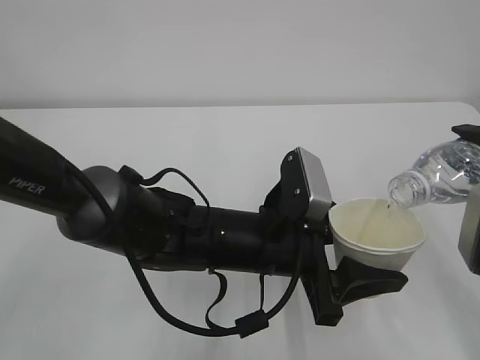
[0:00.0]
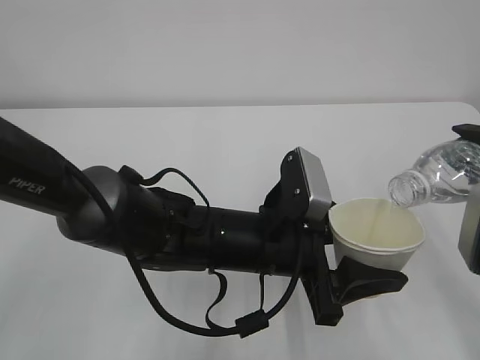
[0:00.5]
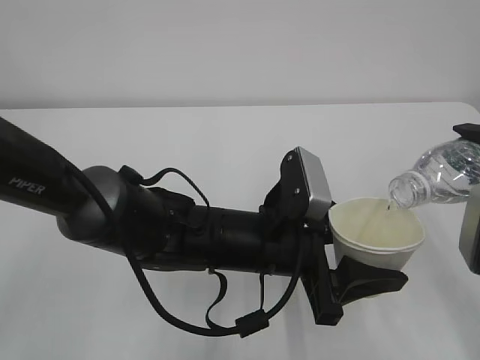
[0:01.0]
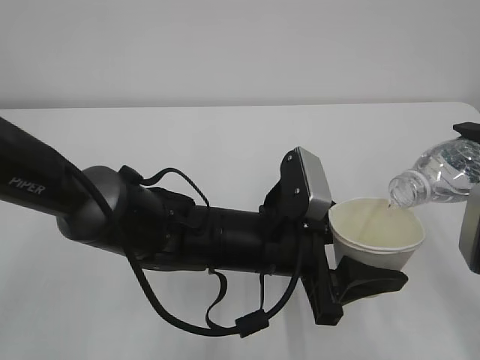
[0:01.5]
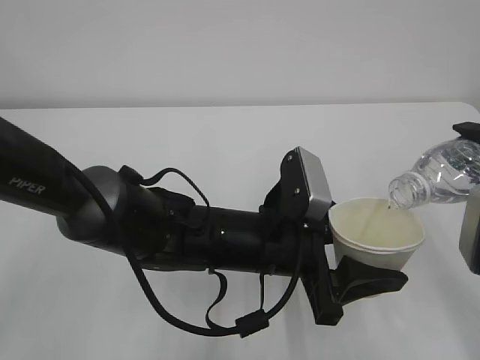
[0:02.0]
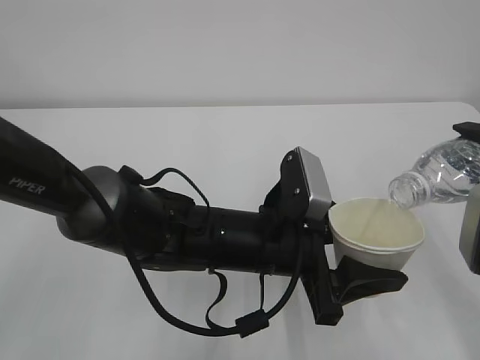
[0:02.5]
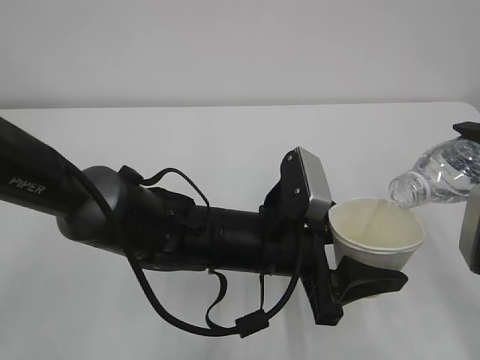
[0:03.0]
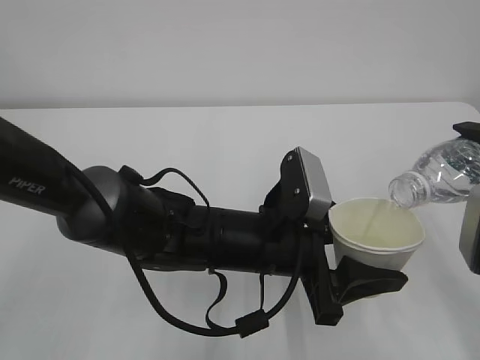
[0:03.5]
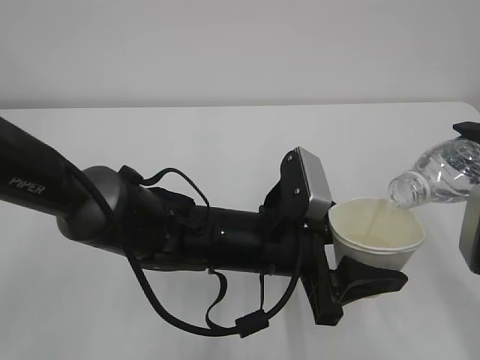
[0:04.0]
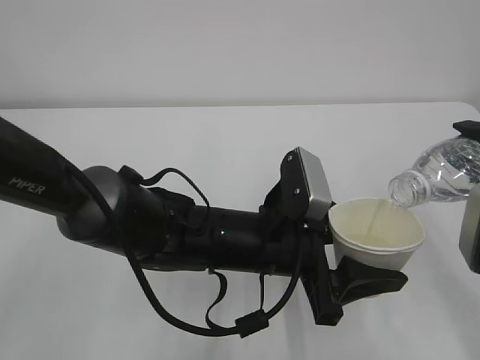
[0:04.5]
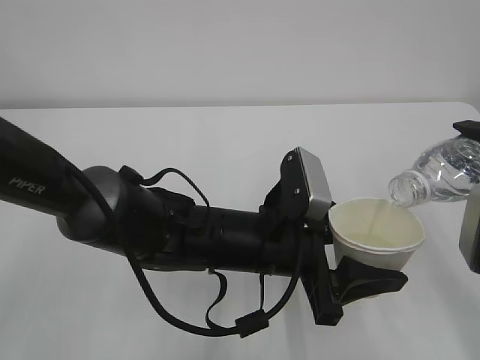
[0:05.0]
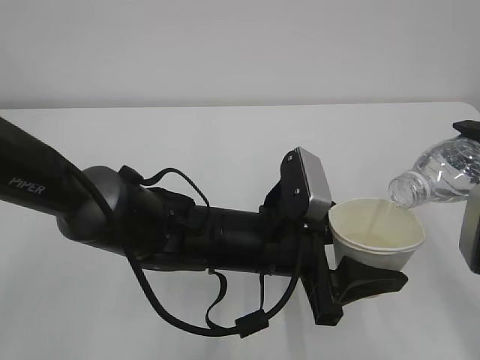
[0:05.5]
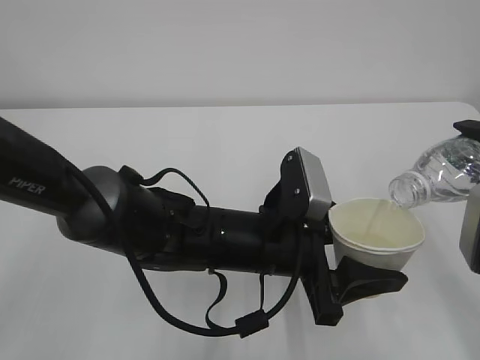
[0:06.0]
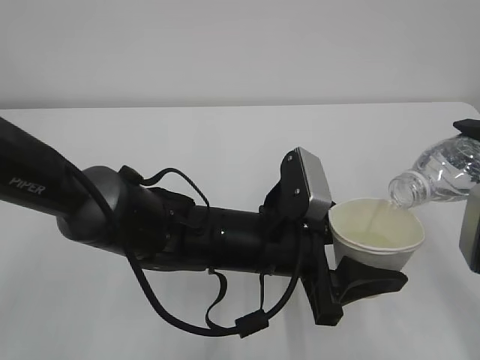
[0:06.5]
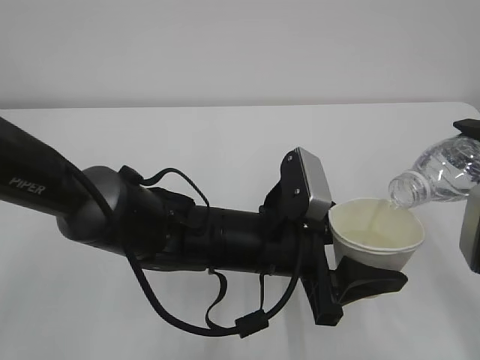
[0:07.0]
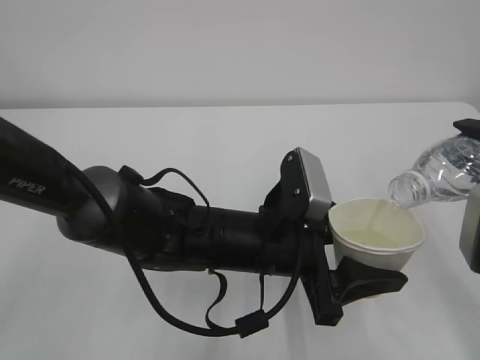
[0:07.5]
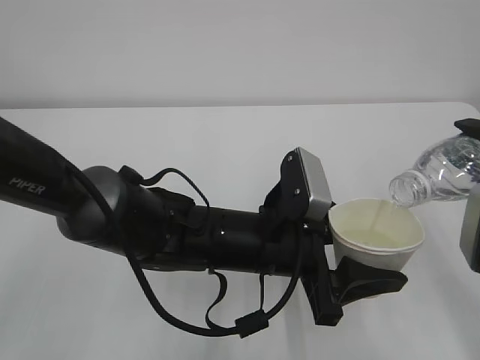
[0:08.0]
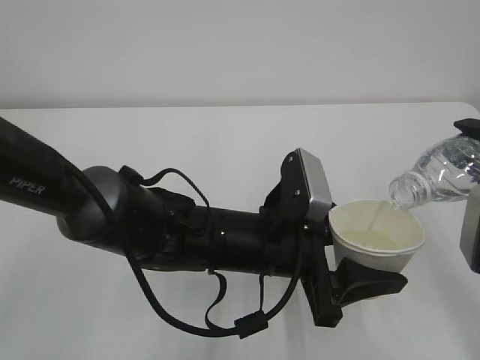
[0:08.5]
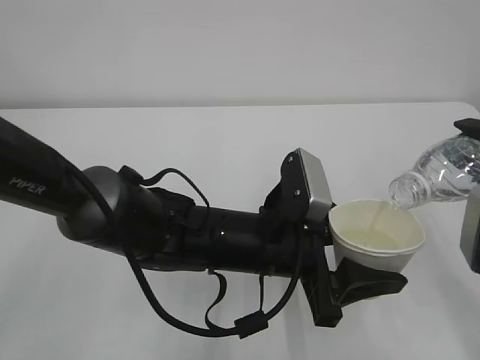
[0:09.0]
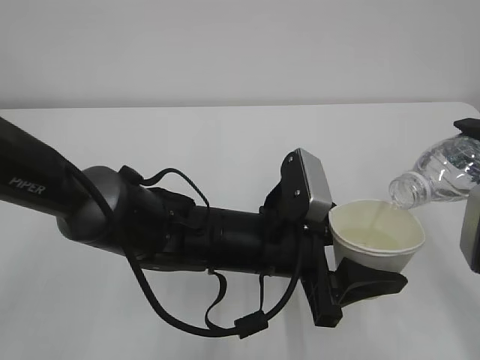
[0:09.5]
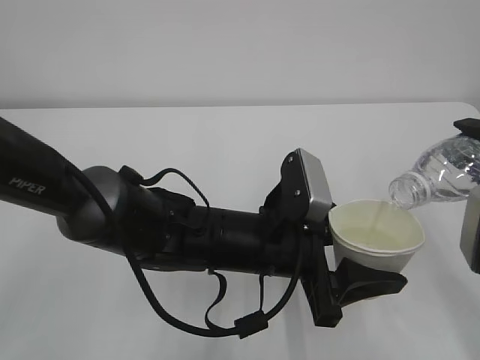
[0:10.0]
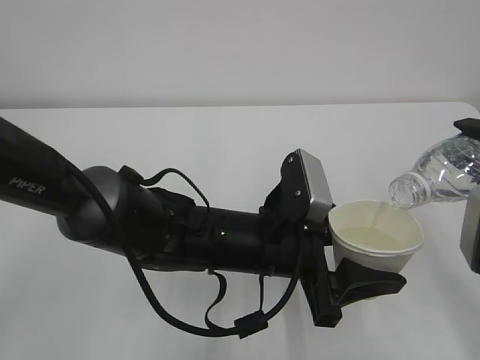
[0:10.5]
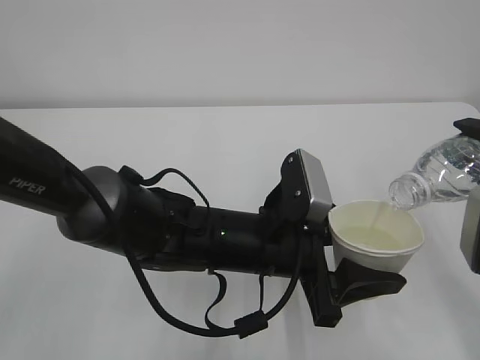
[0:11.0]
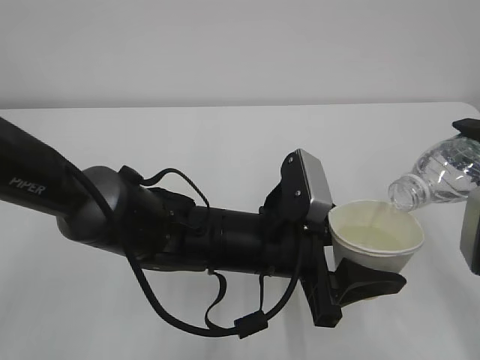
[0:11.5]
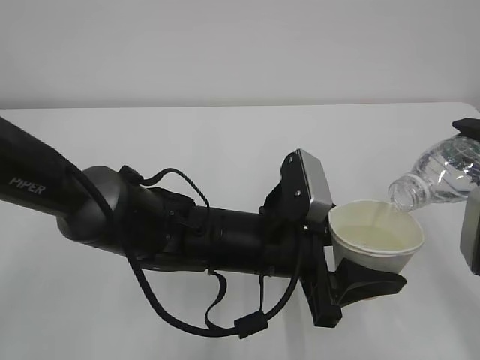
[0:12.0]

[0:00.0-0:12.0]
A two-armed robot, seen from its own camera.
0:00.0 to 0:10.0: The two grippers keep their place.
0:10.0 to 0:12.0: The two grippers keep their place.

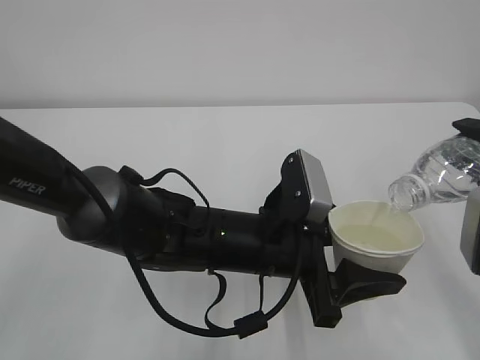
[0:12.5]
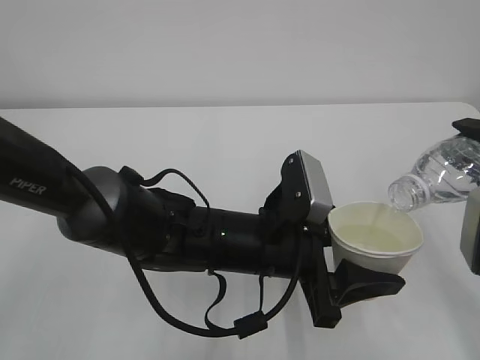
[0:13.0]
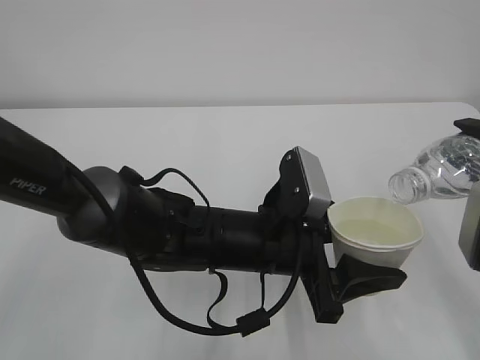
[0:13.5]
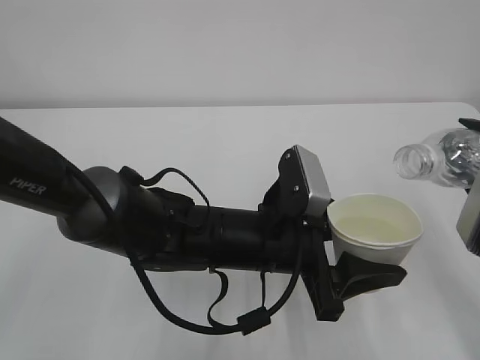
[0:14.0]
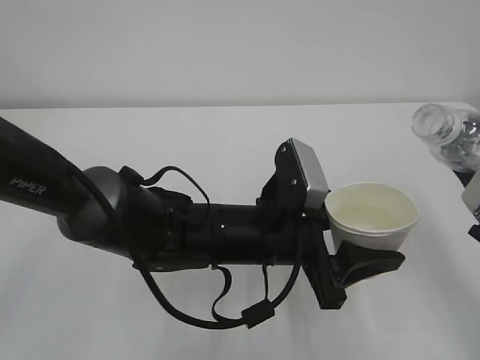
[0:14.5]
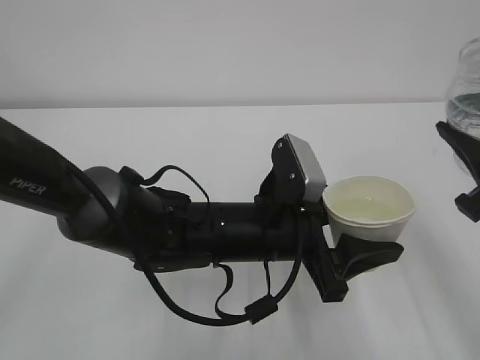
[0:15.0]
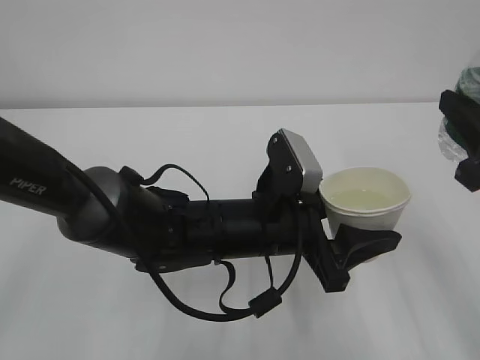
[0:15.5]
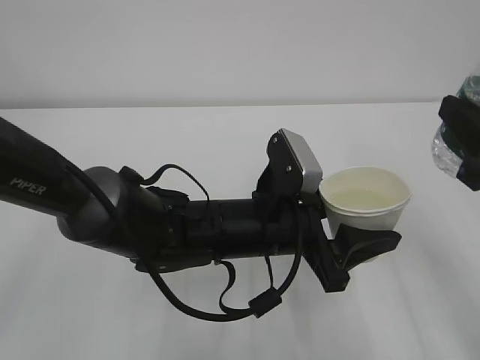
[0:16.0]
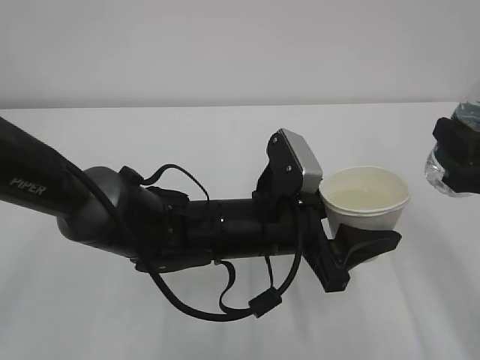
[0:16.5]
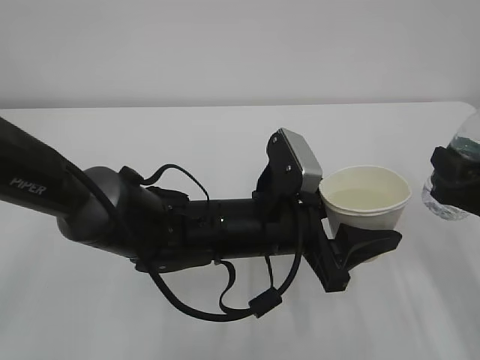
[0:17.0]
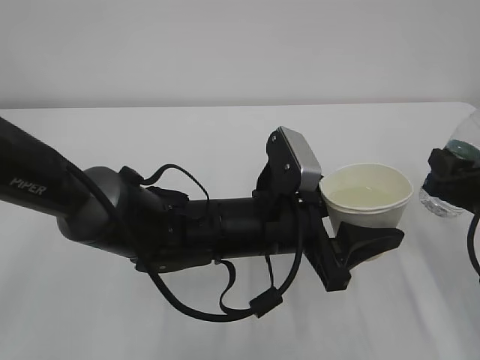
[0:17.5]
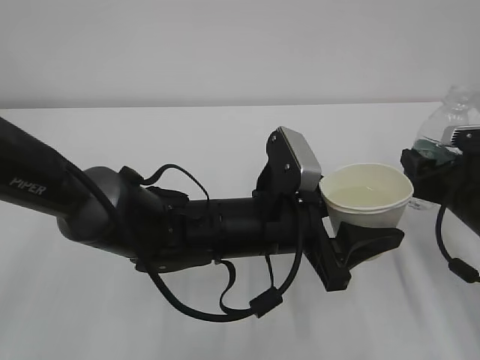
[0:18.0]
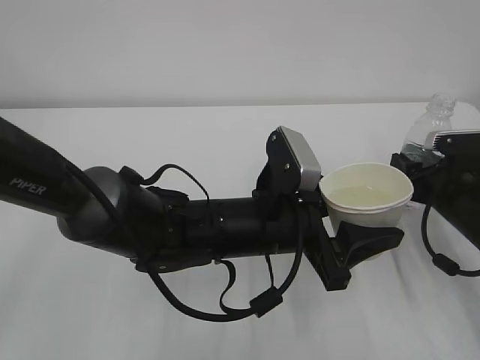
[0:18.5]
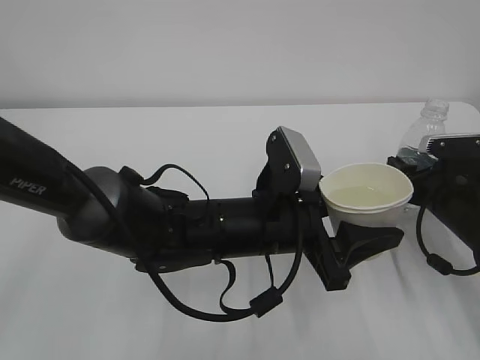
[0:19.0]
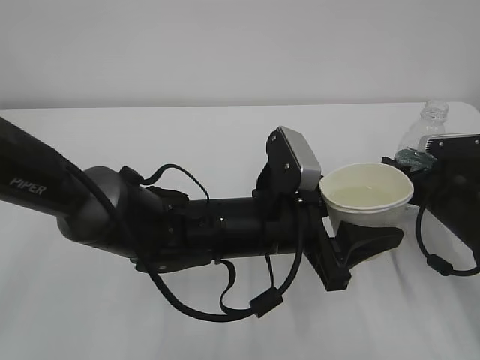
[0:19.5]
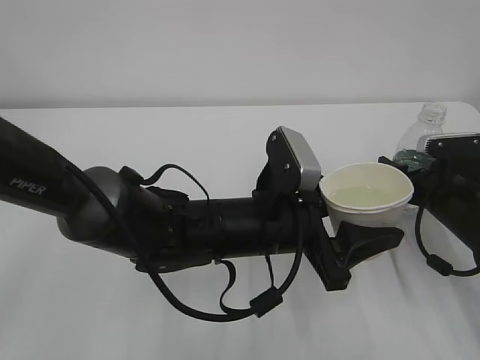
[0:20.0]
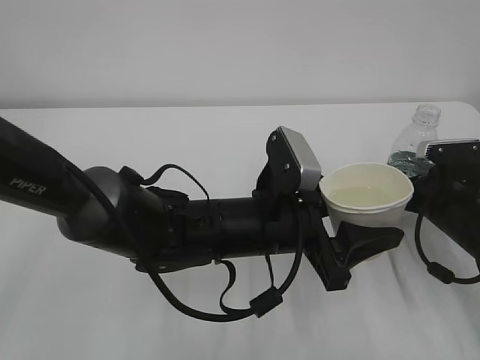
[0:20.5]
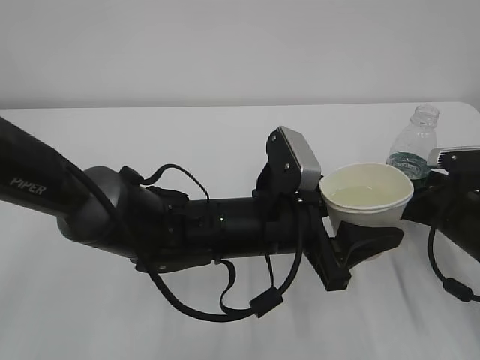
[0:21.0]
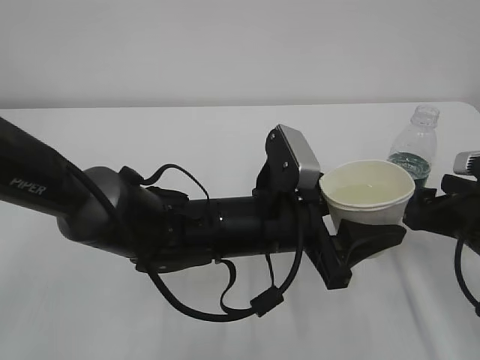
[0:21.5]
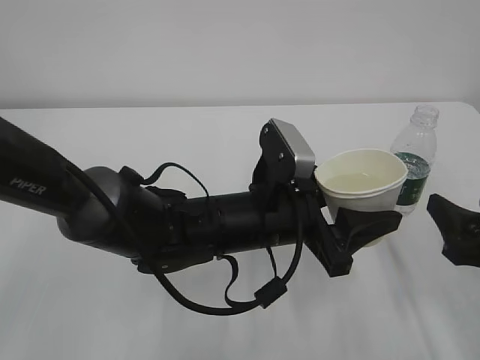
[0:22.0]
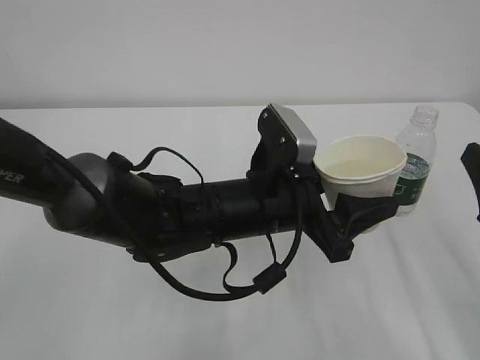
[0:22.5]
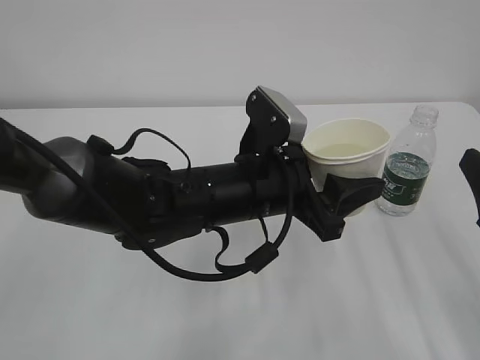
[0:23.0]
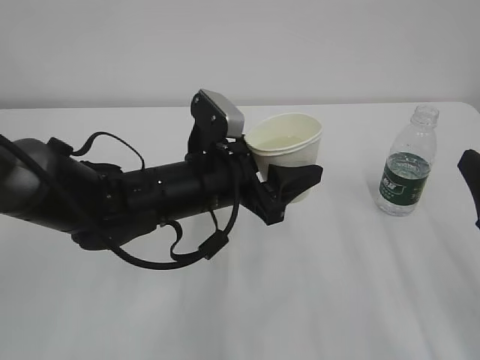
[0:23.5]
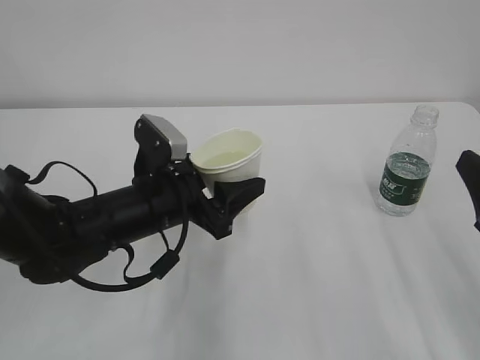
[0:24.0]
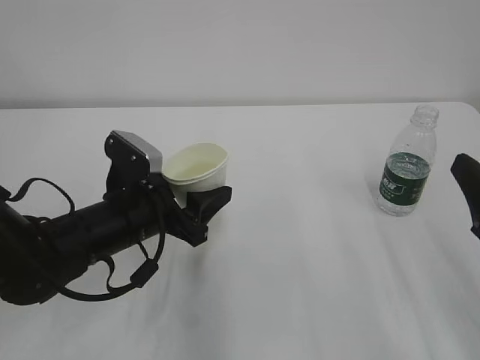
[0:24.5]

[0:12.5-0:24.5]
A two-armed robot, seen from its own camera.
0:16.5 to 0:18.5: The right gripper travels downward and forward by about 15 cm.
0:18.5 to 0:20.5: The right gripper opens.
0:20.5 to 0:22.5: The right gripper travels backward and upward by roughly 20 cm.
0:22.5 to 0:24.5: The left gripper goes about 15 cm to the left.

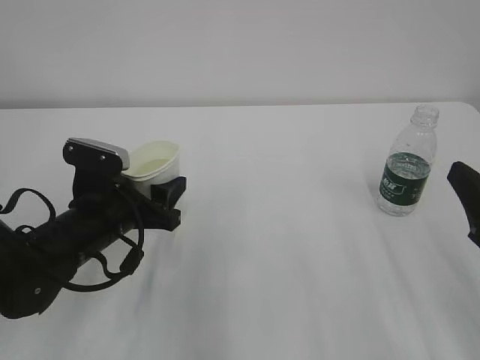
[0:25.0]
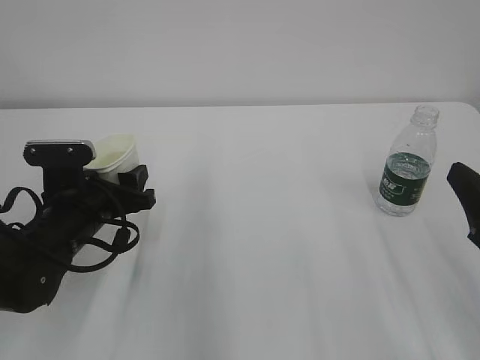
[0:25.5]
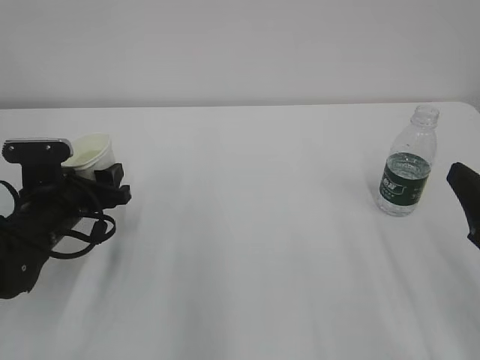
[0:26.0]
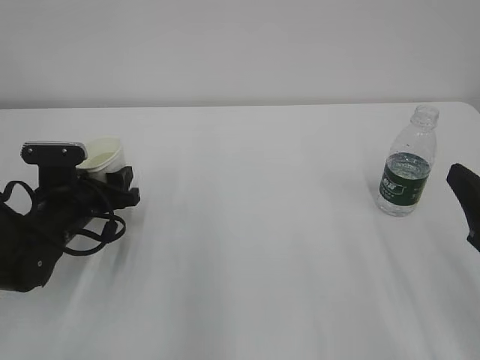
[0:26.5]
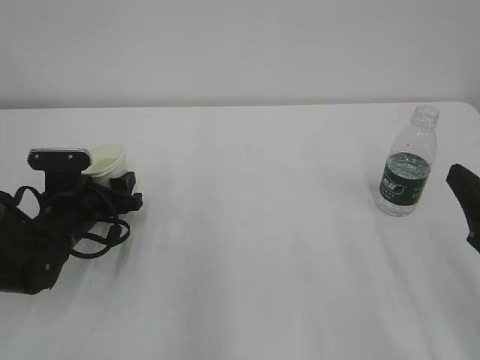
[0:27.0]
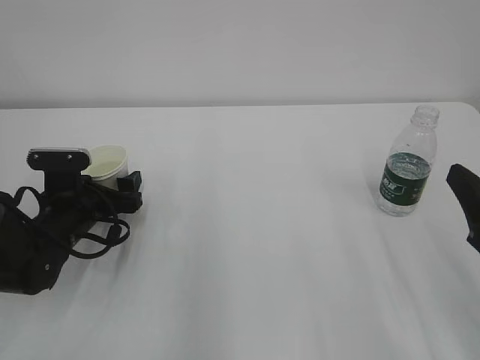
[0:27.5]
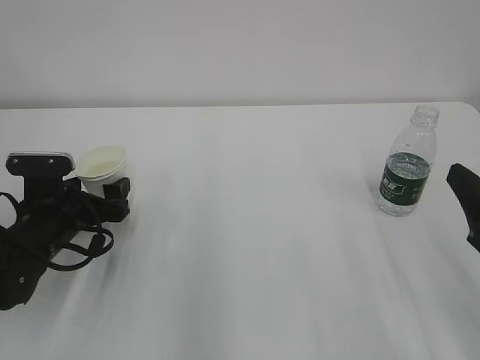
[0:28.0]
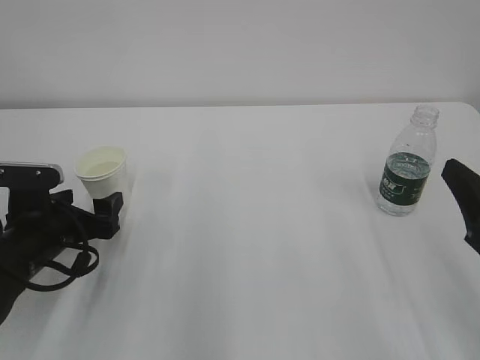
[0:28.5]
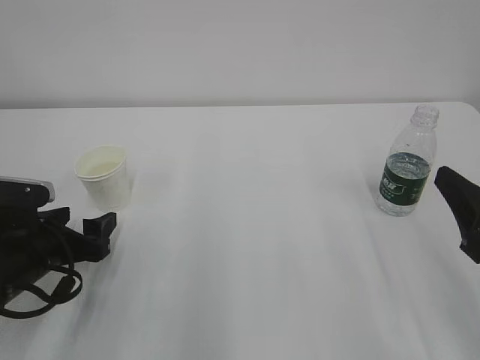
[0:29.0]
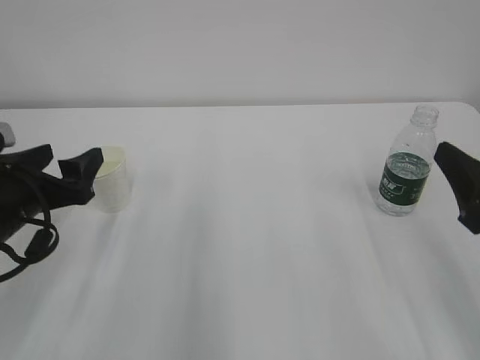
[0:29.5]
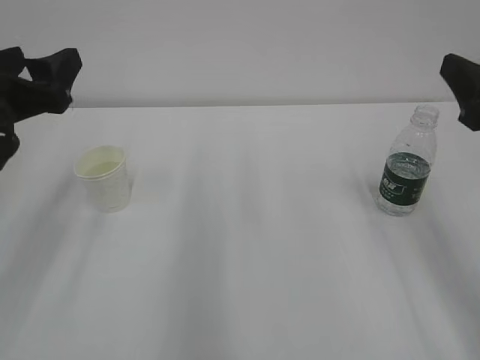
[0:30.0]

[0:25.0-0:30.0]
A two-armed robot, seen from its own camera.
0:25.0 to 0:27.5: The left gripper goes about 5 cm to the left and forward, and opens up.
0:27.5 to 0:30.0: The right gripper moves upward and forward, some 10 cm. Meanwhile the left gripper moves upward, approximately 20 cm, and closes.
